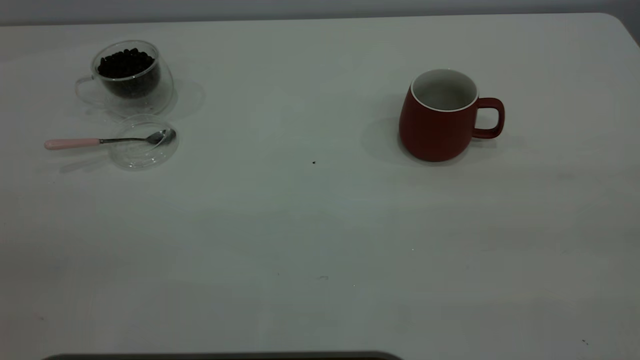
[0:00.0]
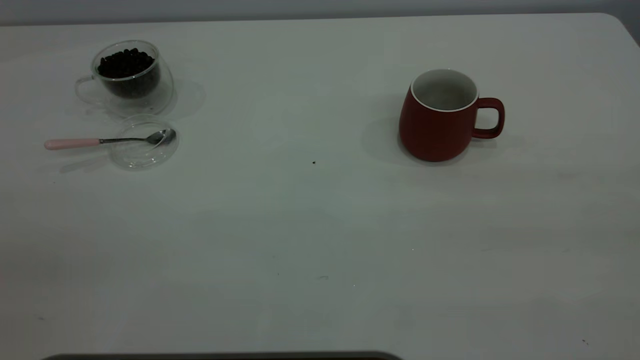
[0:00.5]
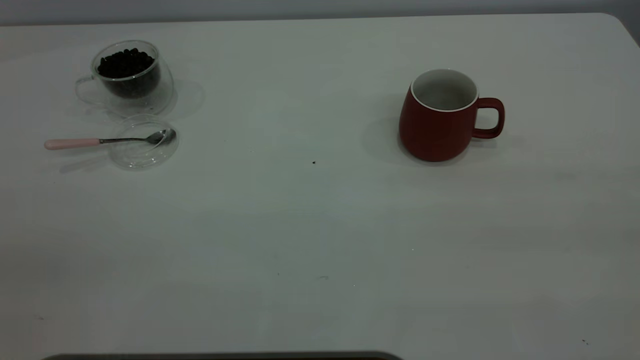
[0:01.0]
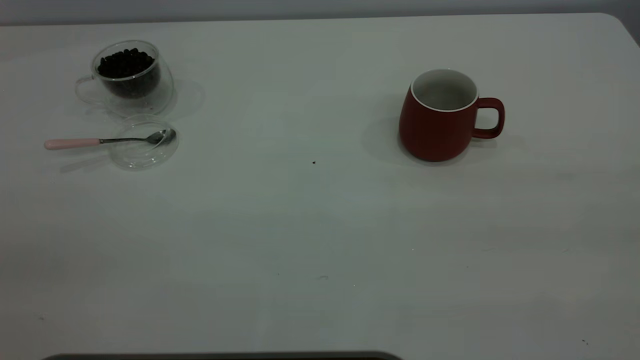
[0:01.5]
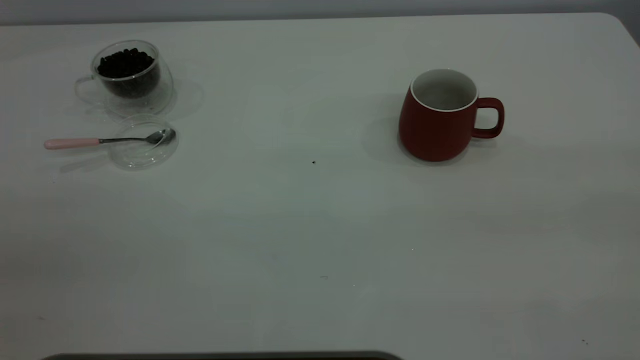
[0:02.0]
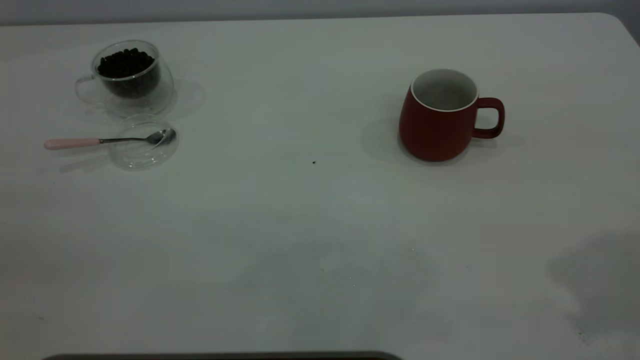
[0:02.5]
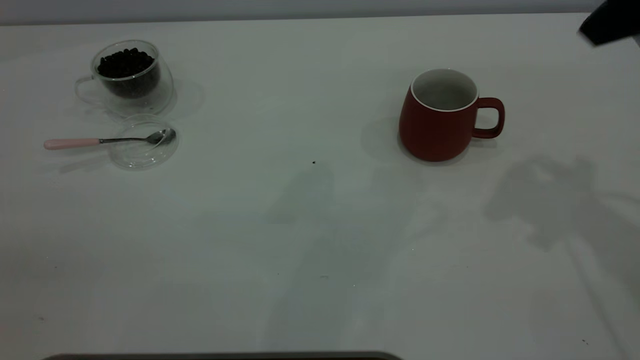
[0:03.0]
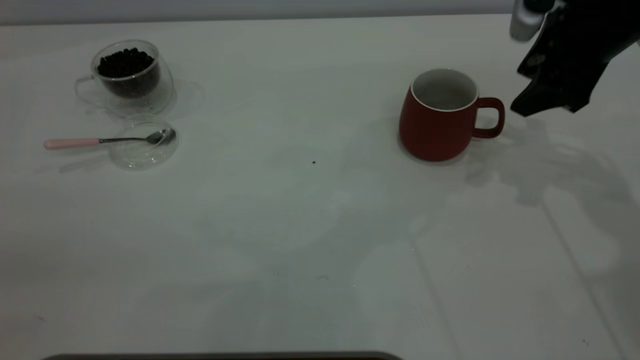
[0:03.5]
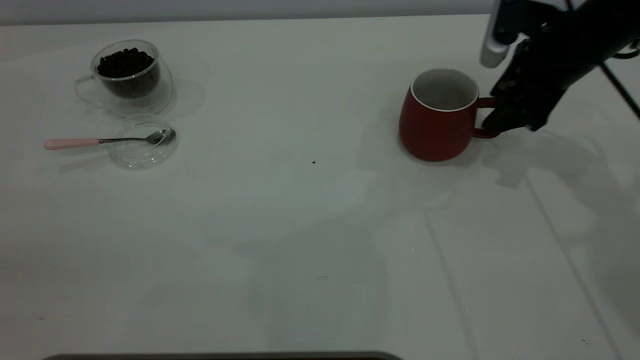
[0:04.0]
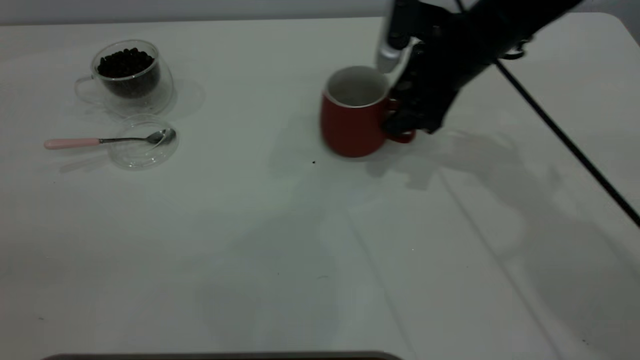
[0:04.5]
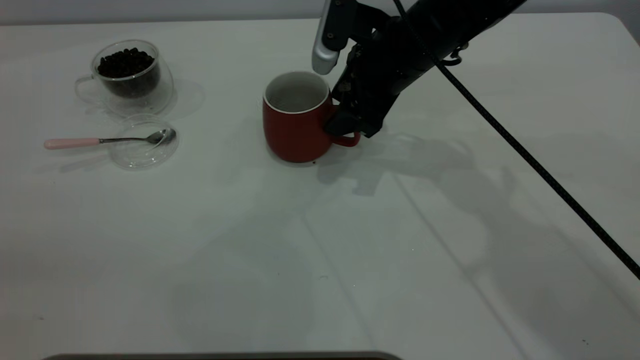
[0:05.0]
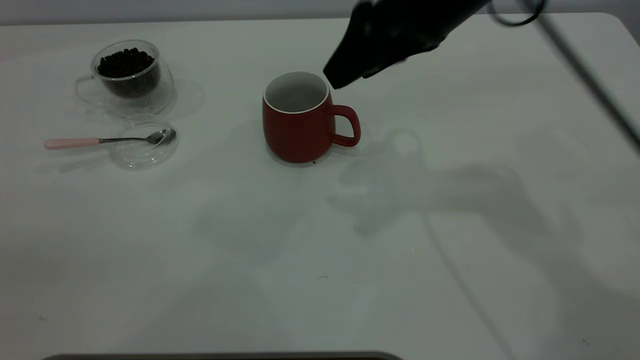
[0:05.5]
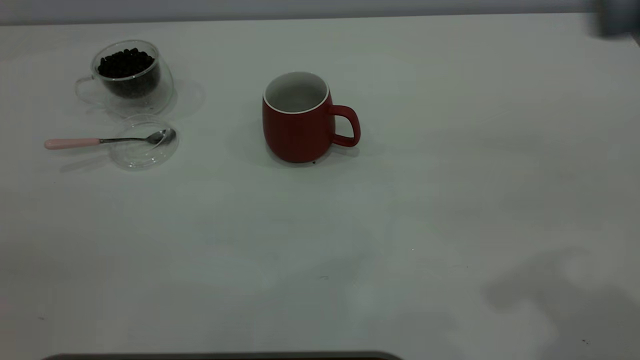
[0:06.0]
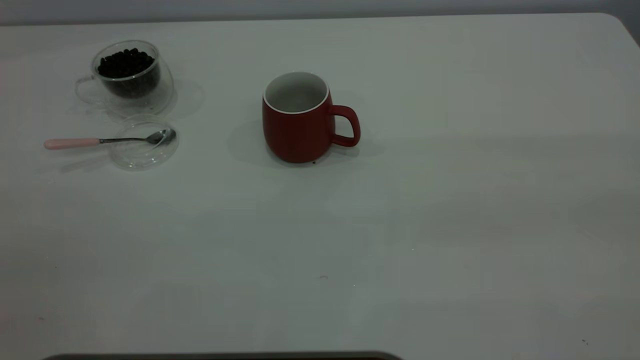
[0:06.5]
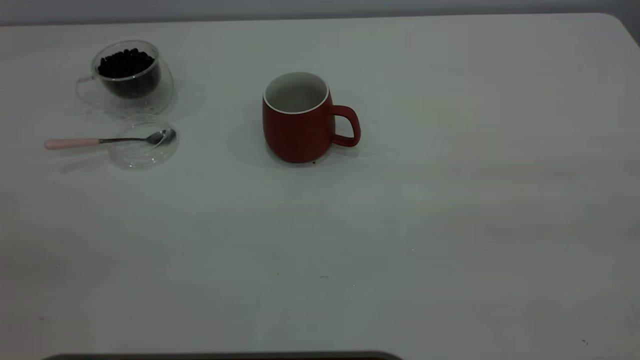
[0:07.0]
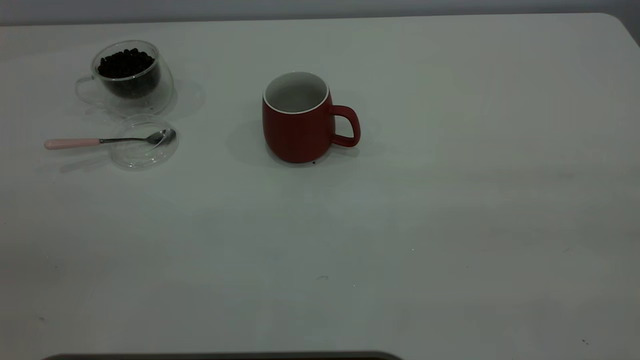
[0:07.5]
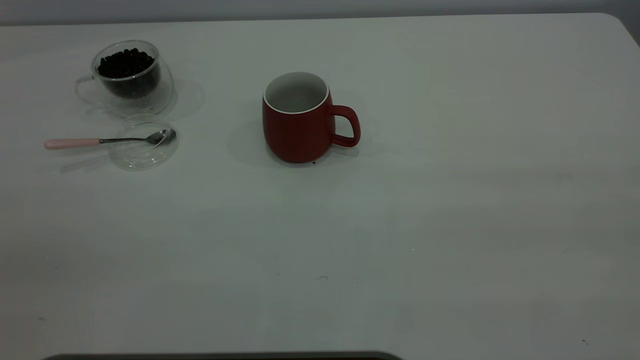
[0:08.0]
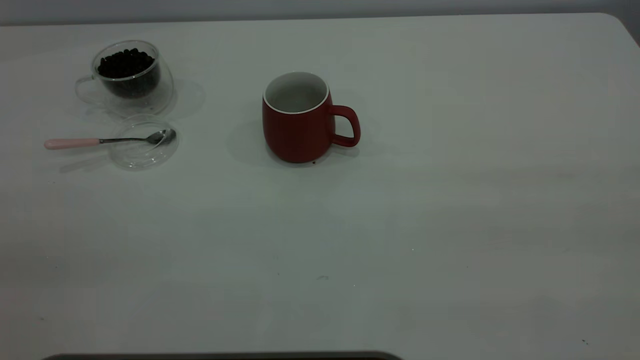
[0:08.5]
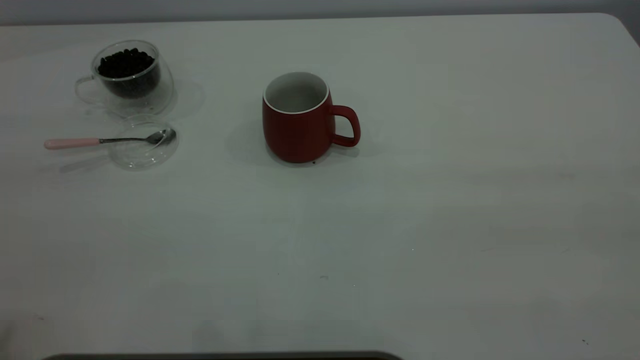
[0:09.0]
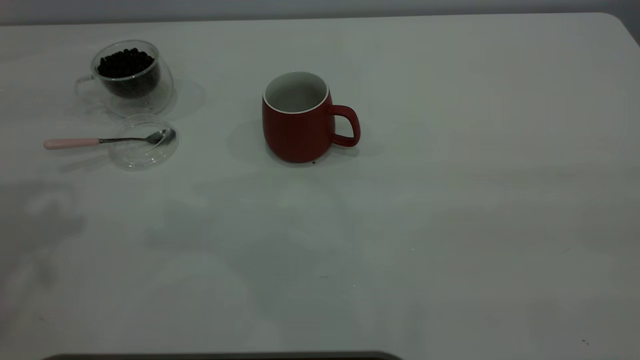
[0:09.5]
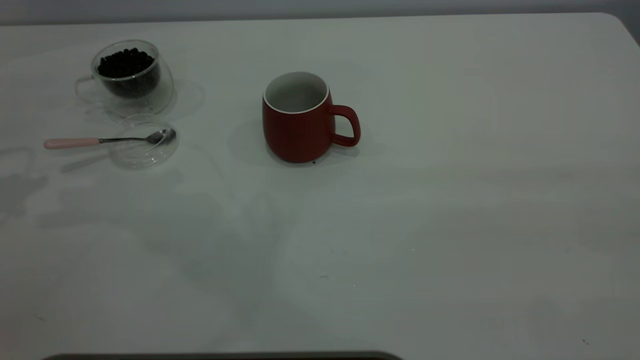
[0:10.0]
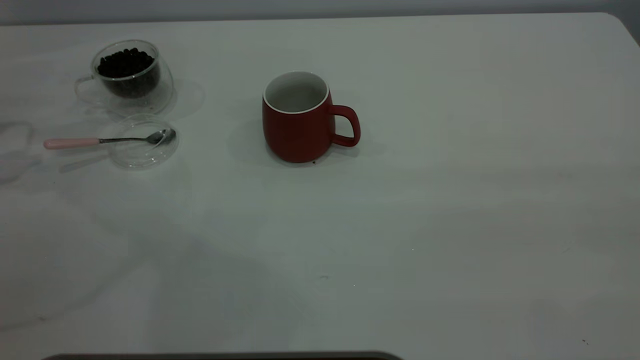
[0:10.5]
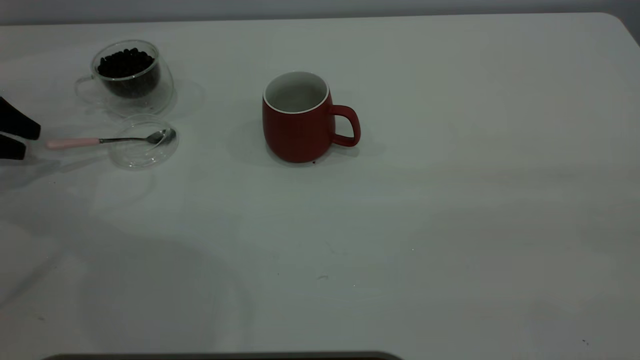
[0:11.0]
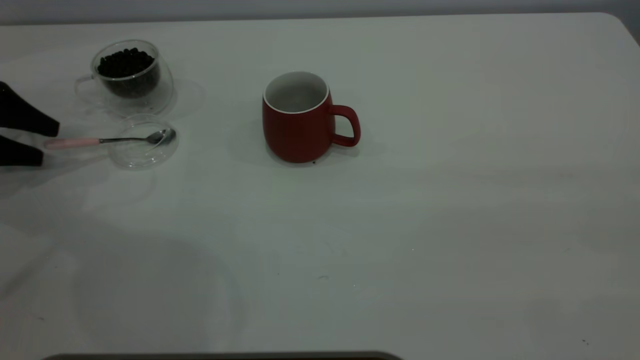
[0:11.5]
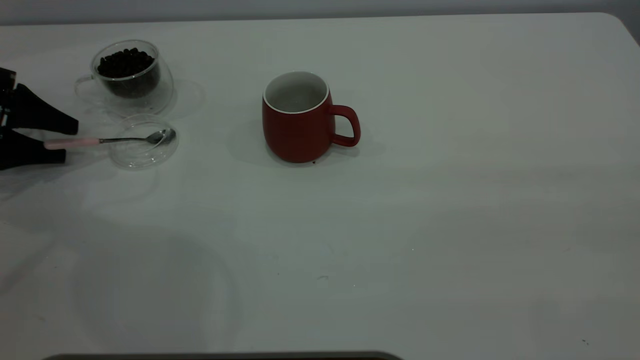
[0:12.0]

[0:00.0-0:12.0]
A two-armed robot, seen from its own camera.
Task of the whole recording: the right gripper place the red cup in the center of the table, the left gripper take the pink spoon from the cup lid and scoop out the coffee beans from the coffee cup and put them into the red cup, the left gripper put the spoon back into the cup lid.
Step, 0:00.0 to 0:05.5: Move the cup to the center of view.
0:02.0 to 0:04.0: The right gripper travels forward and downward by some 50 cm.
0:04.0 to 0:06.0: The right gripper goes approximately 30 cm backward and upward.
0:10.0 to 0:12.0: The left gripper travels downward by roughly 15 cm.

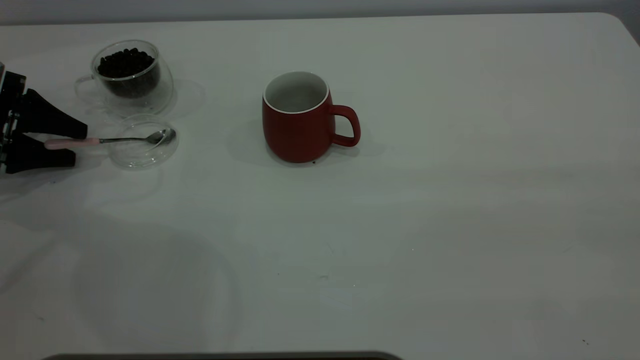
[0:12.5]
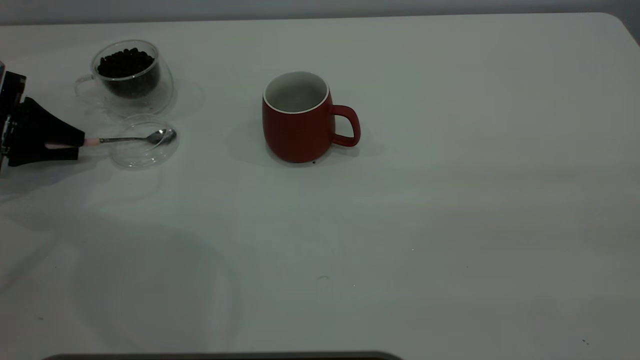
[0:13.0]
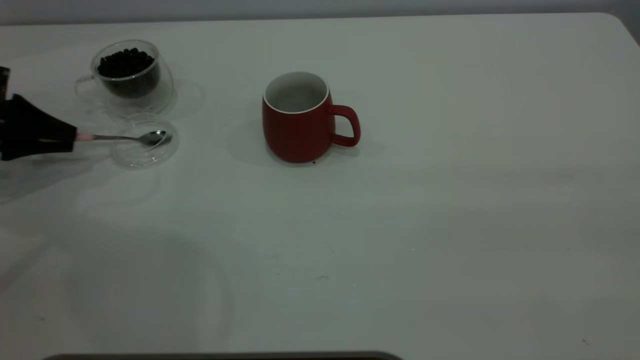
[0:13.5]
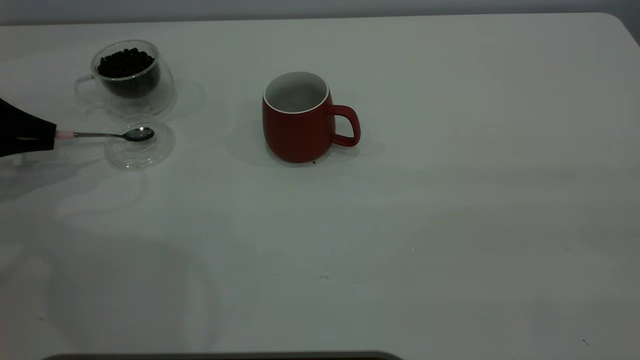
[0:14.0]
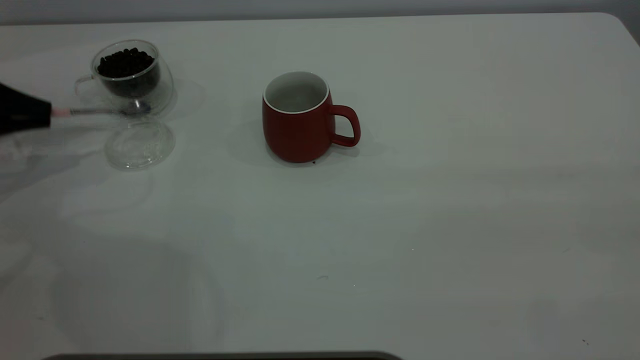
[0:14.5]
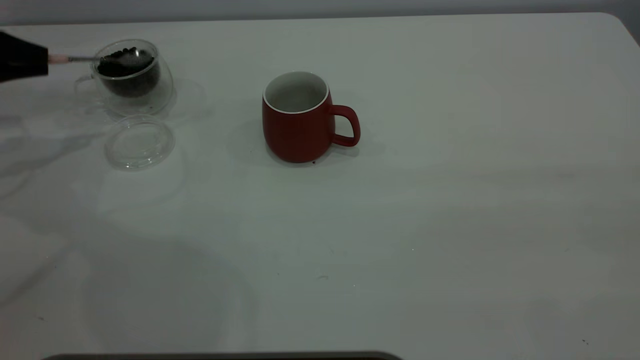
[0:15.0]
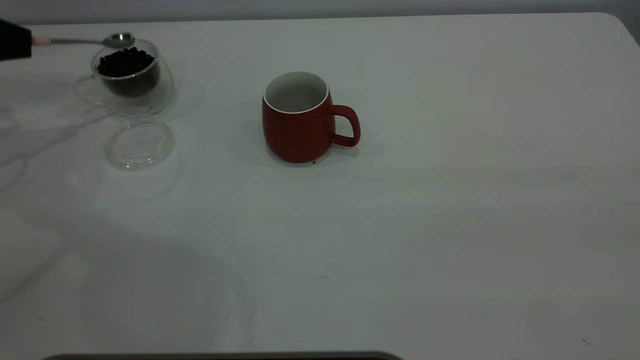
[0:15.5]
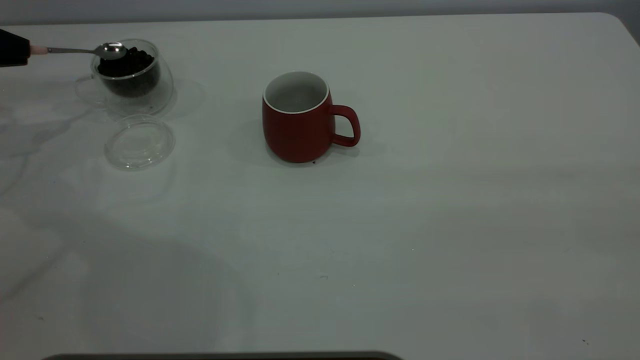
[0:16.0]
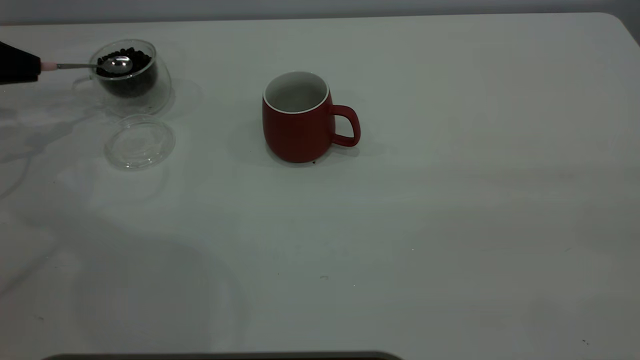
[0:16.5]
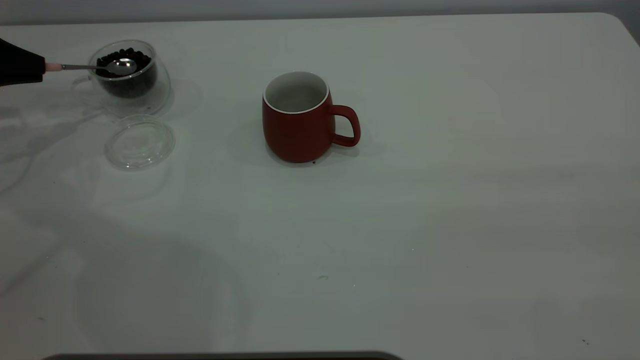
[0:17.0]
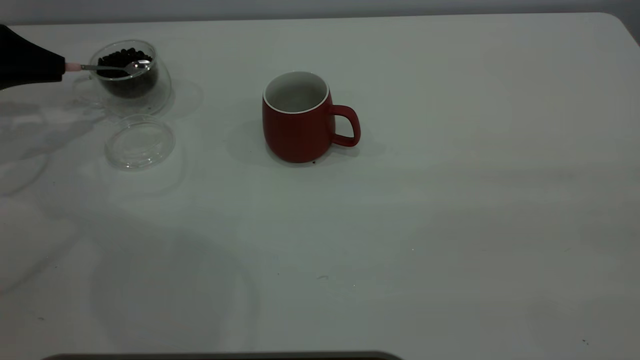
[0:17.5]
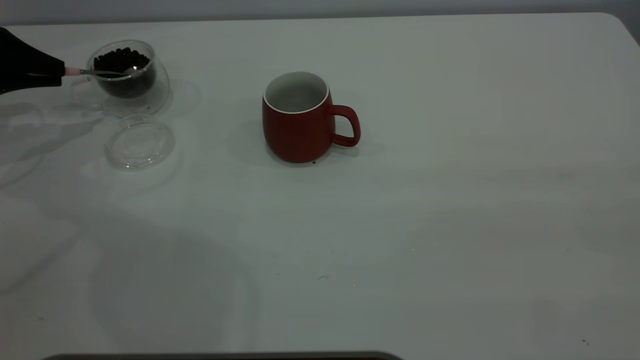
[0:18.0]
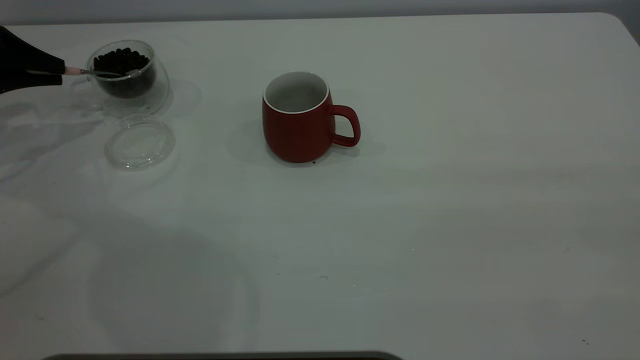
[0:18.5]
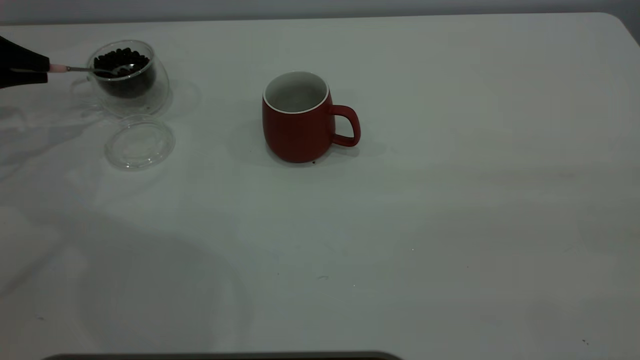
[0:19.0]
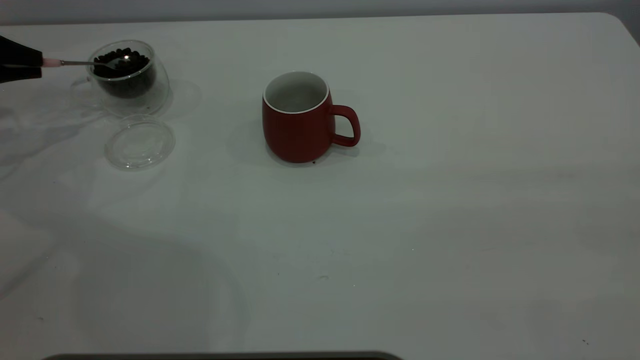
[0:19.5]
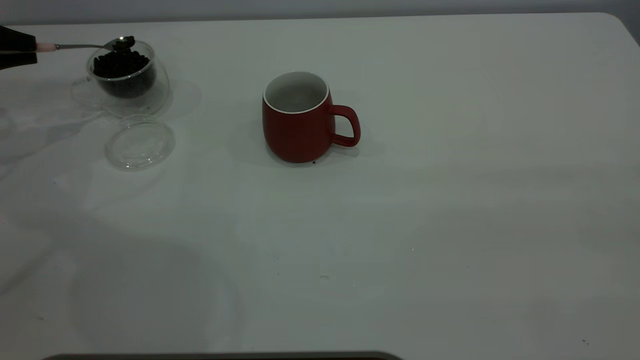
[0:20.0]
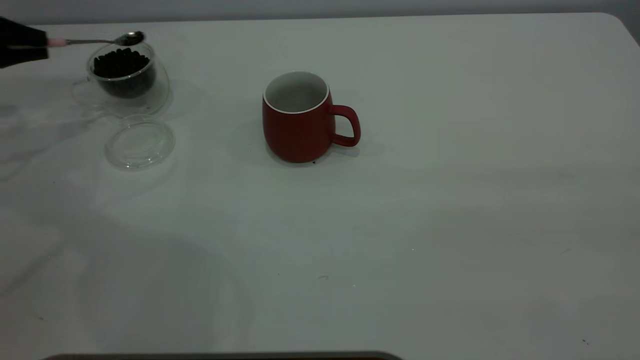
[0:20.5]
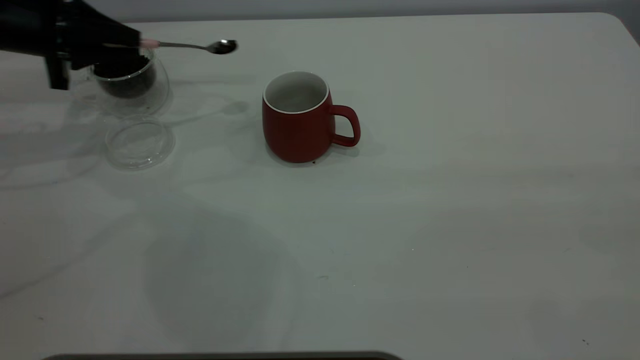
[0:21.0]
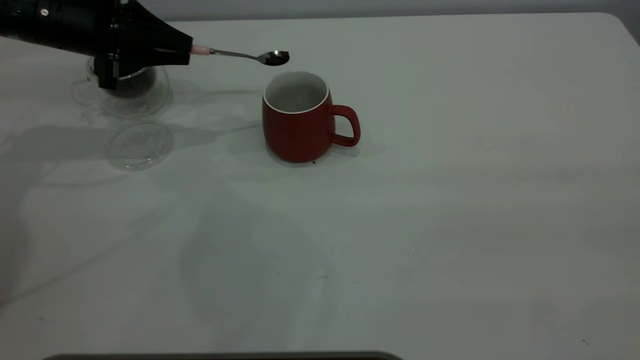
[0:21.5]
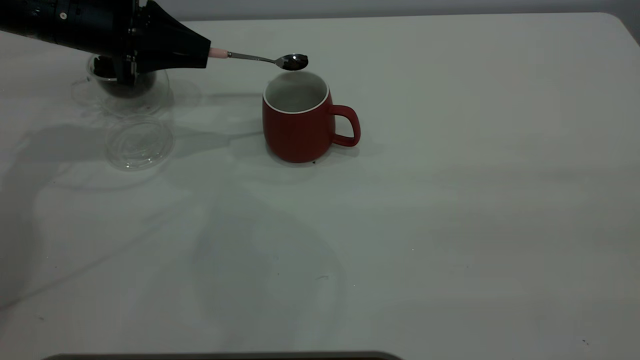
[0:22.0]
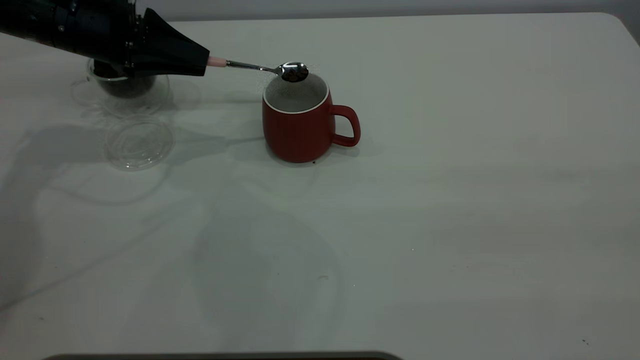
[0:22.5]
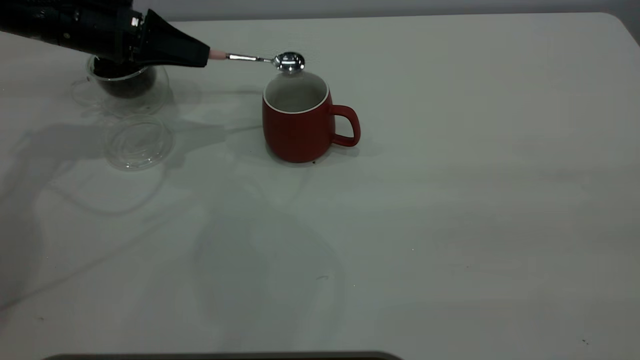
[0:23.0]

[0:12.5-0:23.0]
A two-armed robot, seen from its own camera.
Task of the whole recording: the right gripper place the red cup in the center of the table, the left gripper take the pink spoon from the cup lid and scoop out the coffee beans from the coffee cup and put them into the red cup, the left gripper put the spoon back into the cup lid.
Step, 0:12.5 to 0:14.5: Pick up the spoon.
0:12.5 to 0:14.5: The left gripper closes.
0:19.0 to 0:21.0: The left gripper shifts about 10 cm to the right.
0:21.0 to 0:23.0: The left gripper moves to the right, roughly 5 cm.
